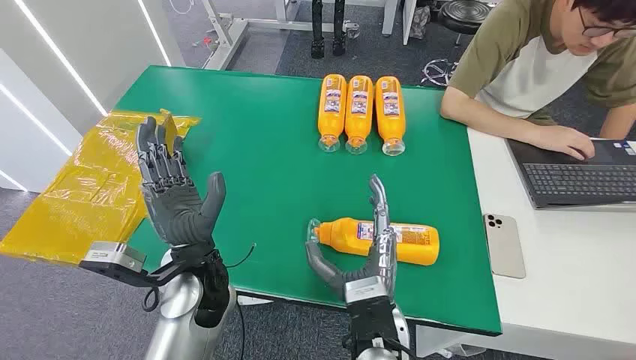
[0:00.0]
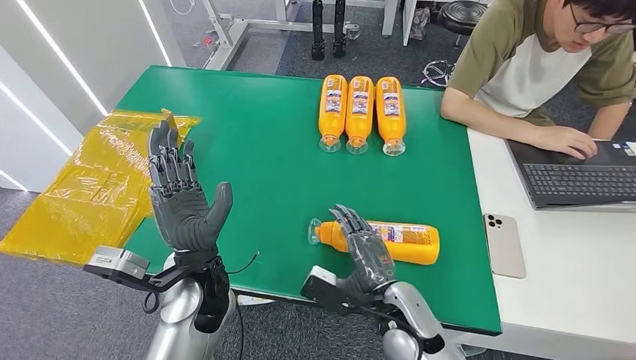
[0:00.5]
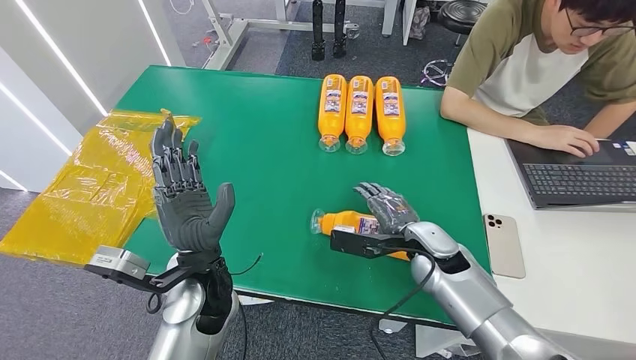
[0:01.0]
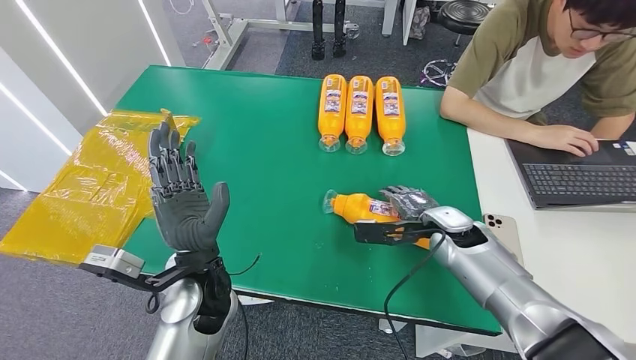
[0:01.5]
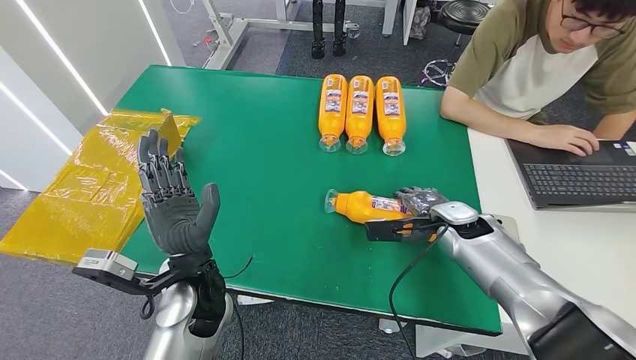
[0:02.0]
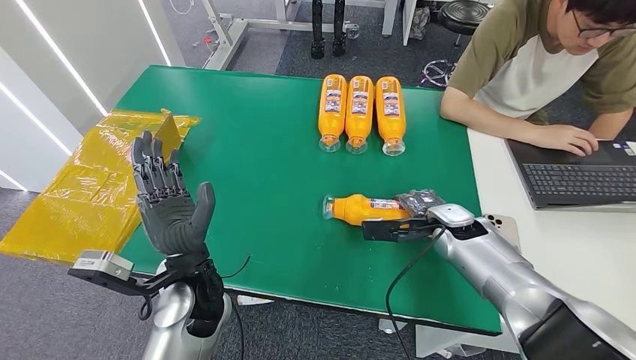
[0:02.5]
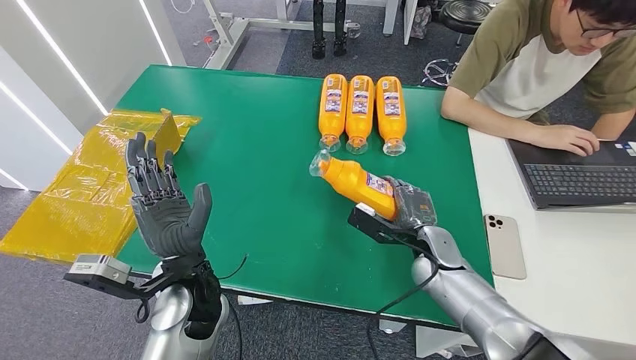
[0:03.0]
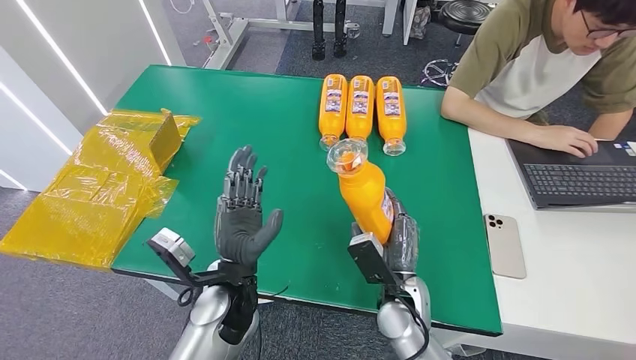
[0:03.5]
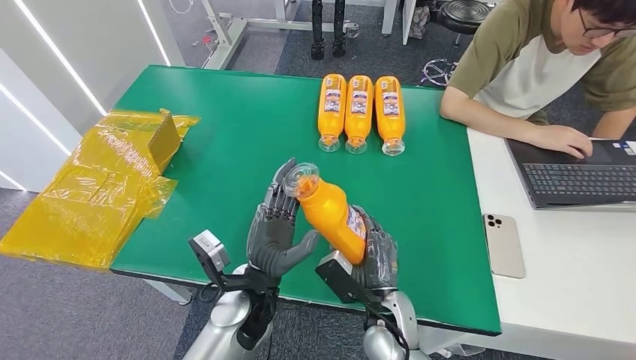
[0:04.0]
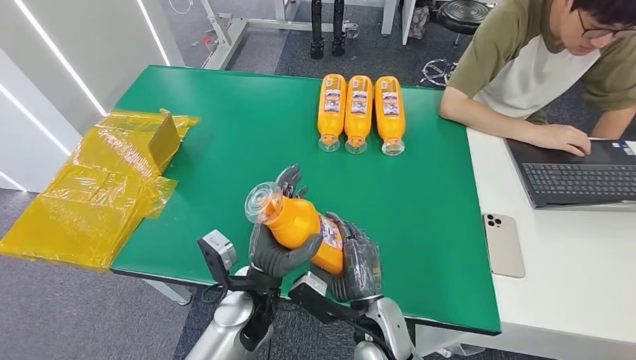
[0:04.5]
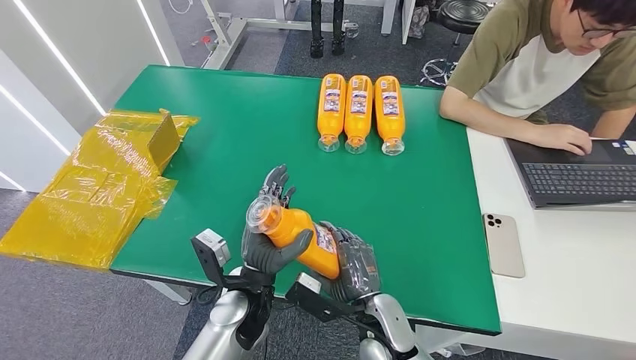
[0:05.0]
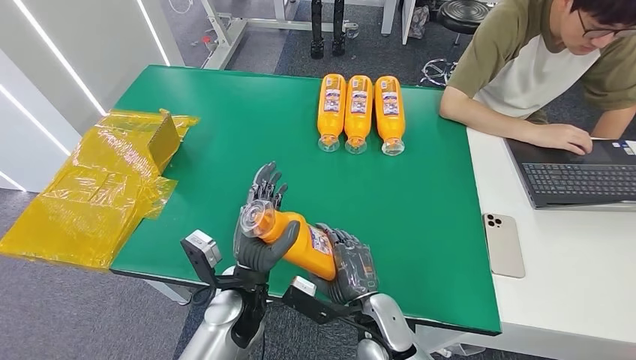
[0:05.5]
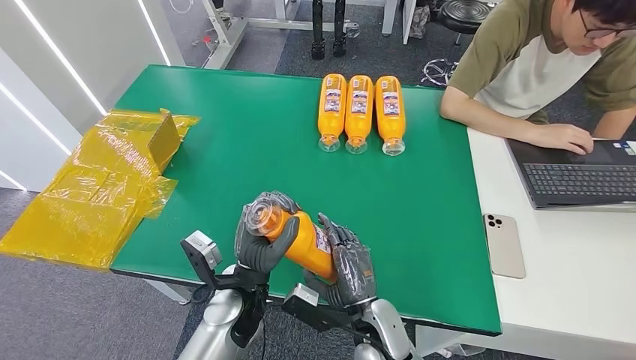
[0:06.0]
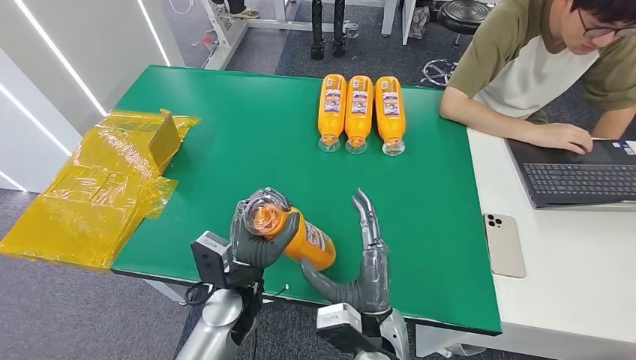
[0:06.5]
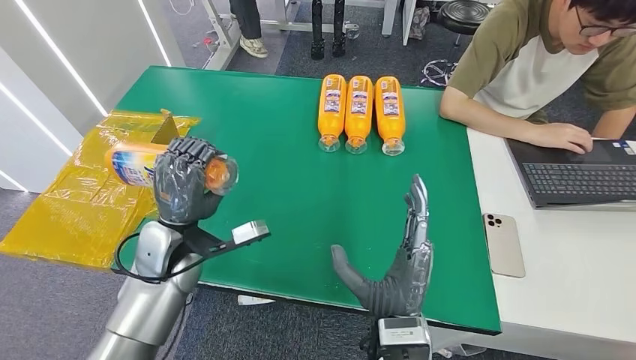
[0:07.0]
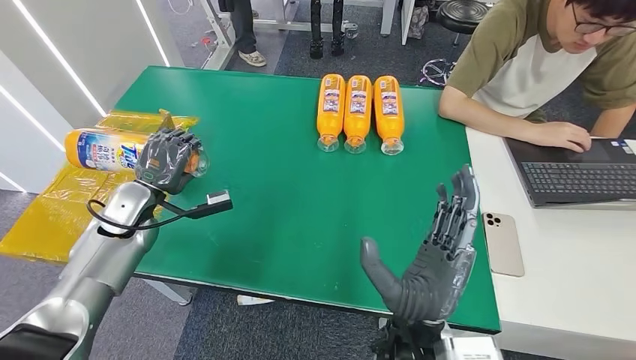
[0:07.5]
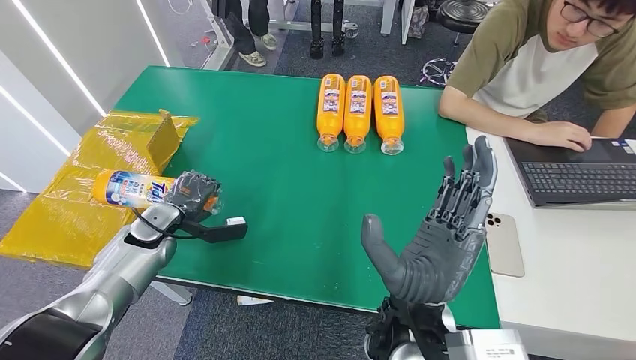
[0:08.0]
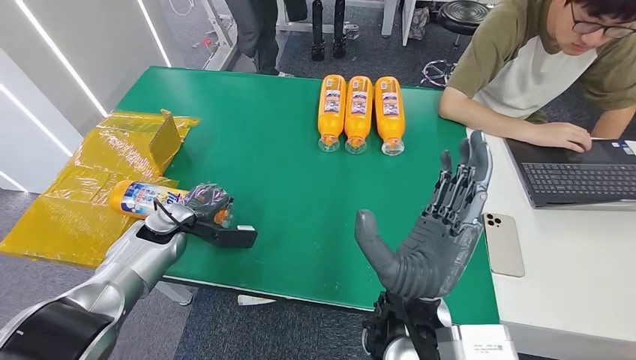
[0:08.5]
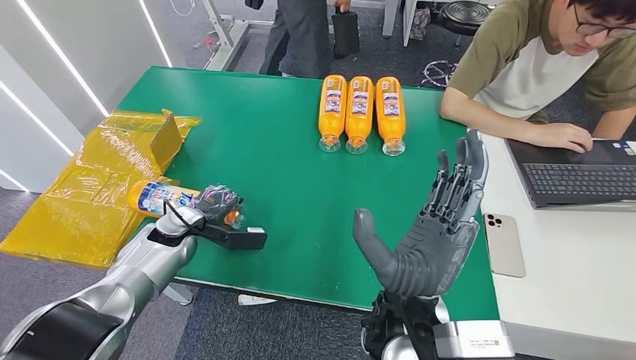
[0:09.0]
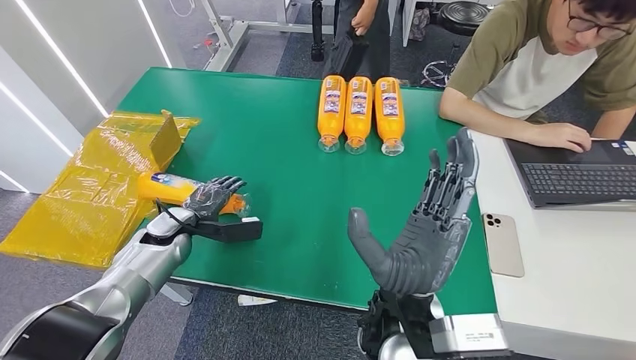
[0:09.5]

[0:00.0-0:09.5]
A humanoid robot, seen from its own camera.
Step, 0:00.0 to 0:03.5: Pick up the bottle from the table.
Step, 0:04.0 to 0:09.5: Turn the bottle to the front side.
0:05.5 to 0:07.5: The right hand heads upward, covering some 15 cm. The left hand moves to the left and forward, approximately 30 cm.

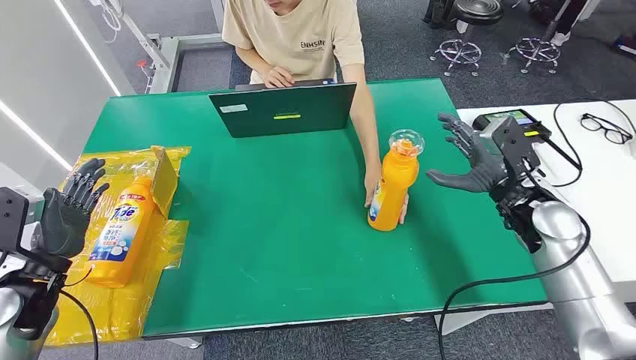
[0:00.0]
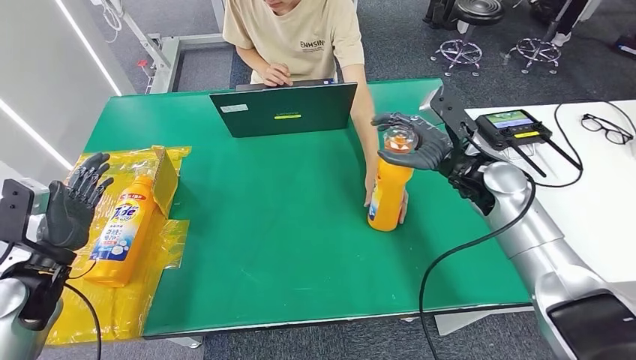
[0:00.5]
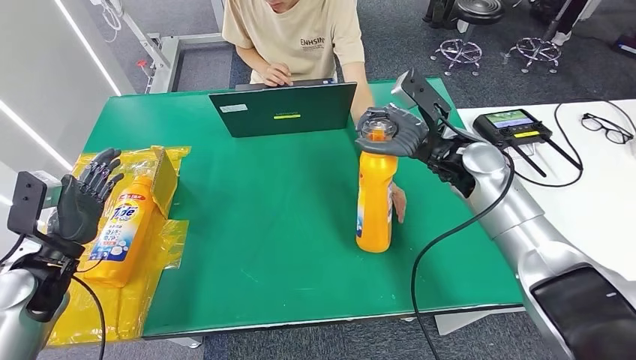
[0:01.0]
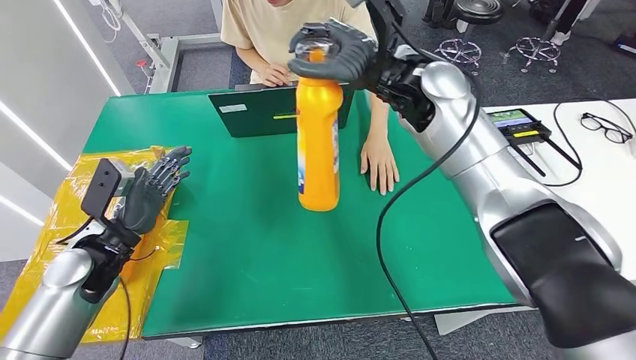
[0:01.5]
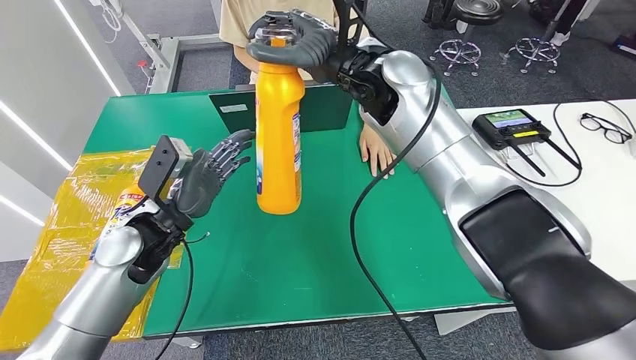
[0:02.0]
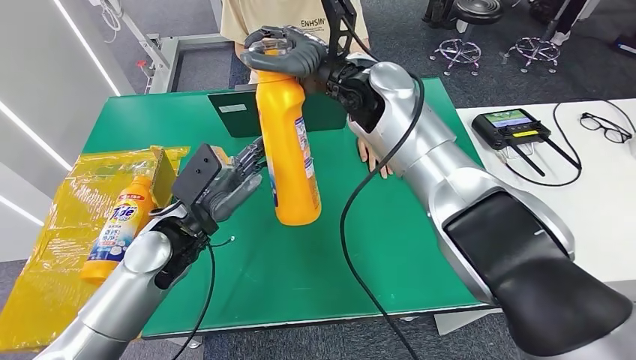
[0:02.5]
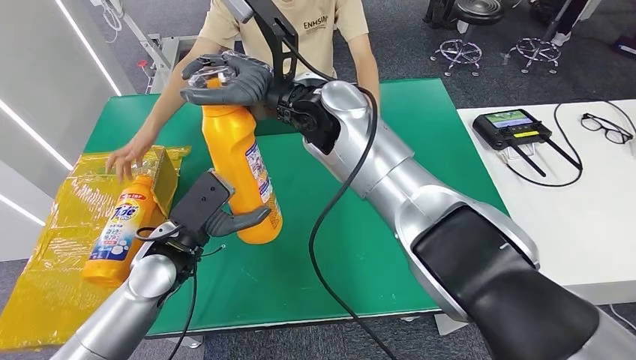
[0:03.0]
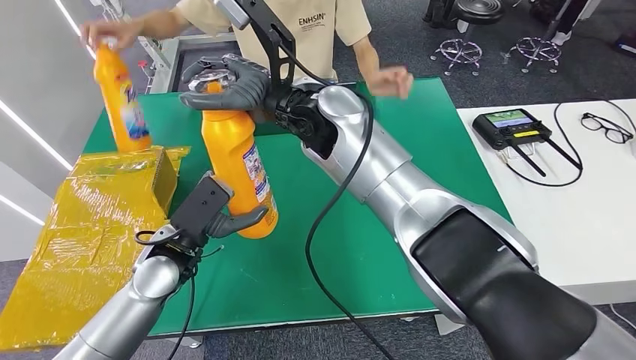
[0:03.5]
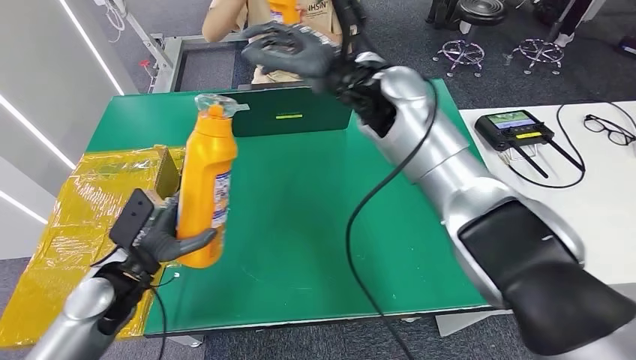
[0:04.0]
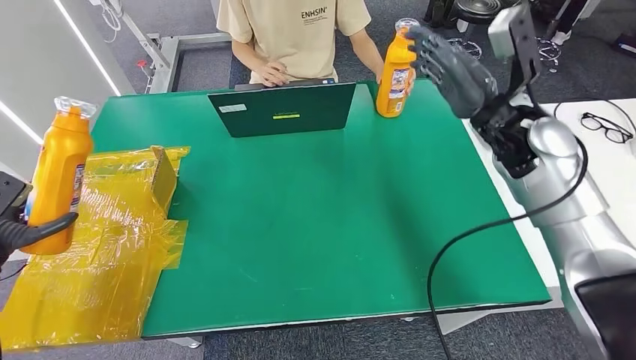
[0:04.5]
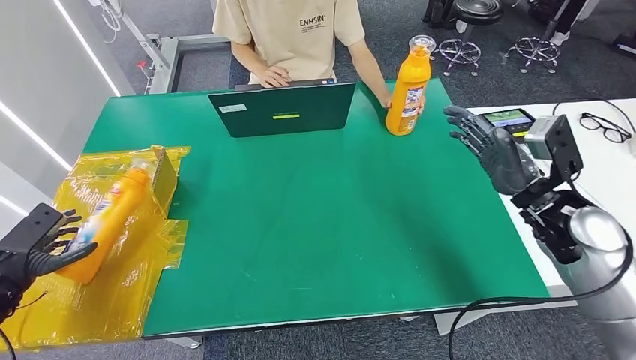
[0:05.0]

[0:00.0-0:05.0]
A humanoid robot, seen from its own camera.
Step, 0:00.0 to 0:01.5: Pick up the bottle from the table.
Step, 0:02.0 to 0:05.0: Turn the bottle to the front side.
